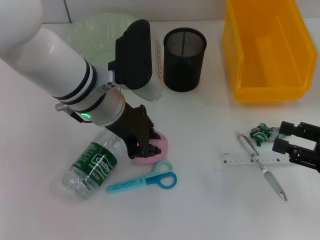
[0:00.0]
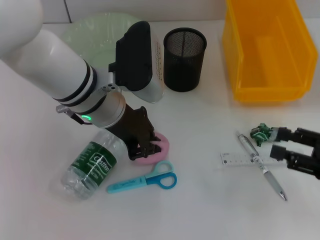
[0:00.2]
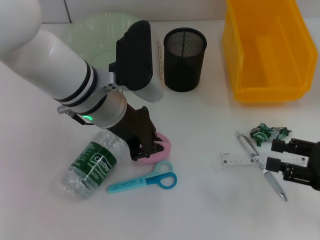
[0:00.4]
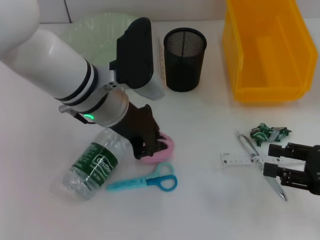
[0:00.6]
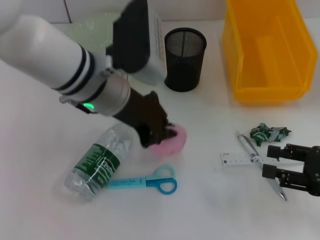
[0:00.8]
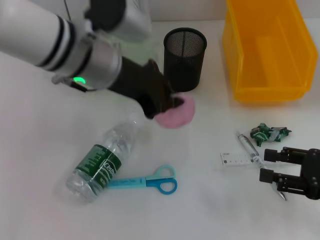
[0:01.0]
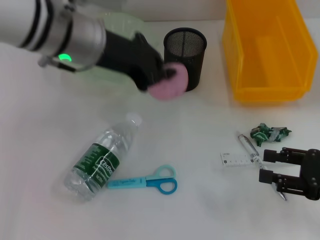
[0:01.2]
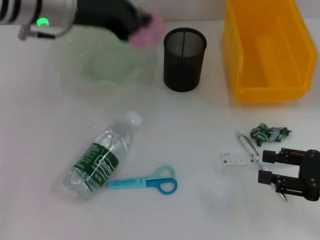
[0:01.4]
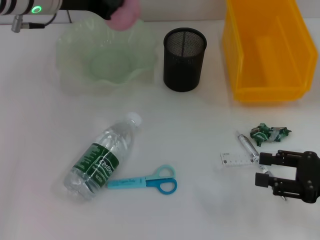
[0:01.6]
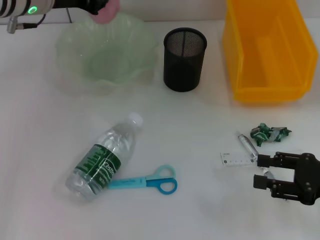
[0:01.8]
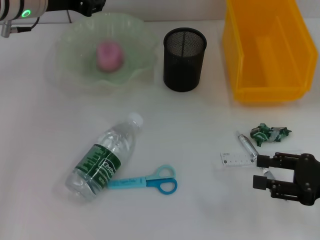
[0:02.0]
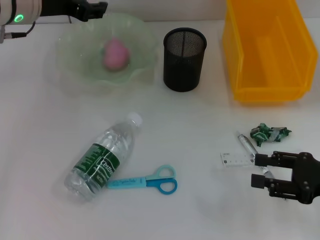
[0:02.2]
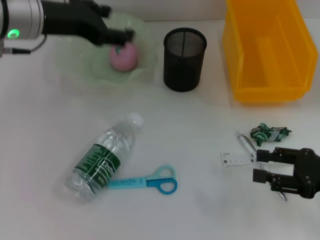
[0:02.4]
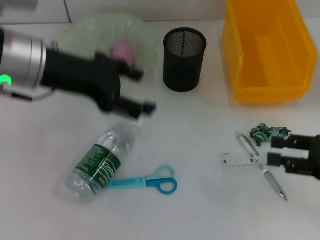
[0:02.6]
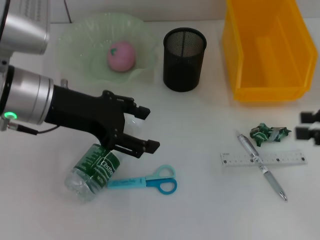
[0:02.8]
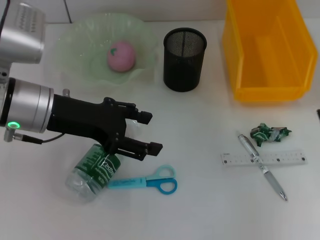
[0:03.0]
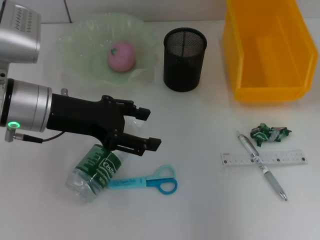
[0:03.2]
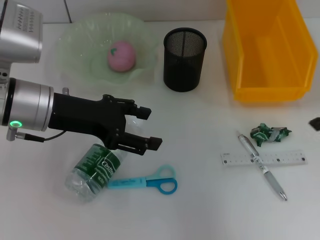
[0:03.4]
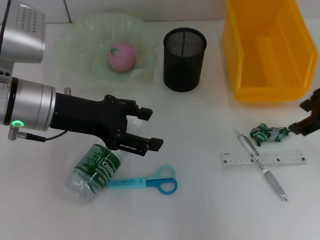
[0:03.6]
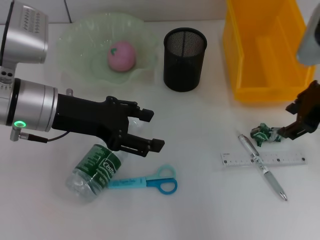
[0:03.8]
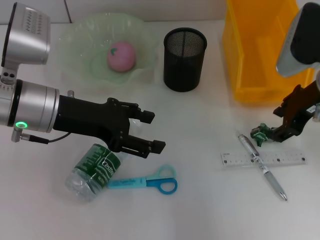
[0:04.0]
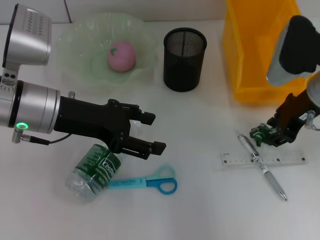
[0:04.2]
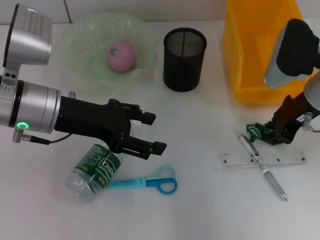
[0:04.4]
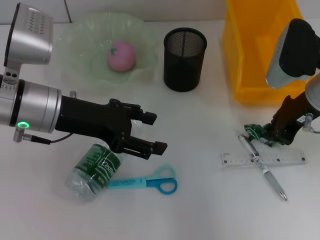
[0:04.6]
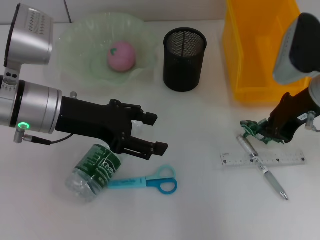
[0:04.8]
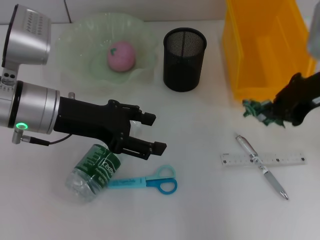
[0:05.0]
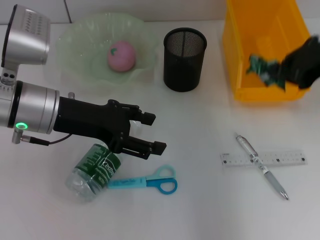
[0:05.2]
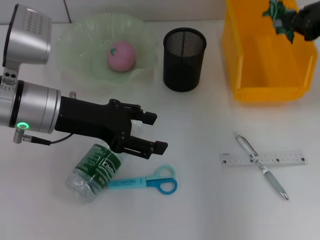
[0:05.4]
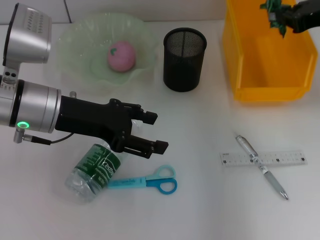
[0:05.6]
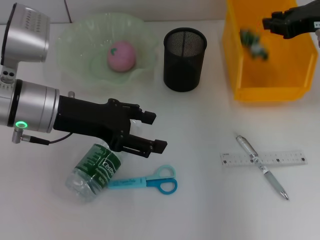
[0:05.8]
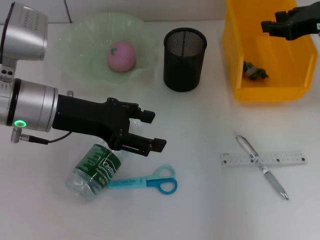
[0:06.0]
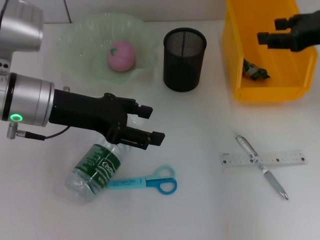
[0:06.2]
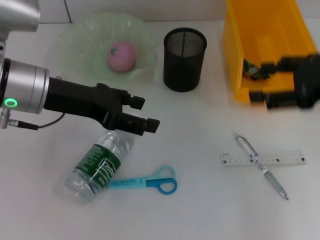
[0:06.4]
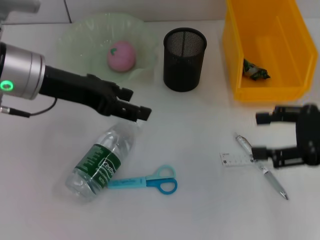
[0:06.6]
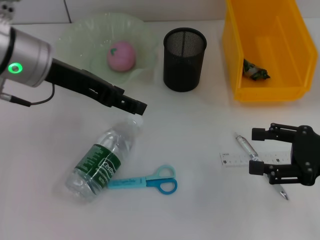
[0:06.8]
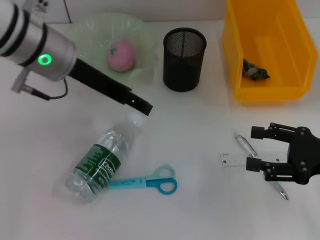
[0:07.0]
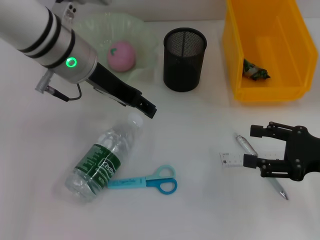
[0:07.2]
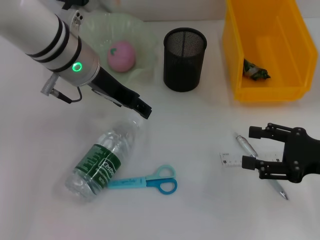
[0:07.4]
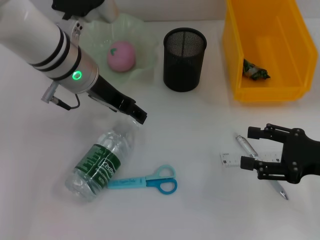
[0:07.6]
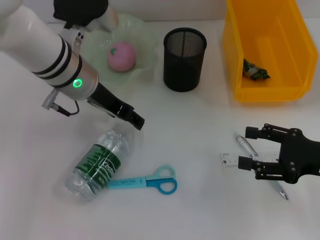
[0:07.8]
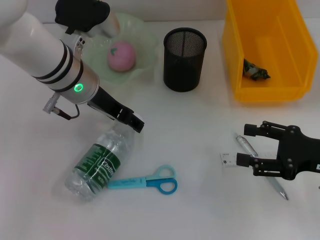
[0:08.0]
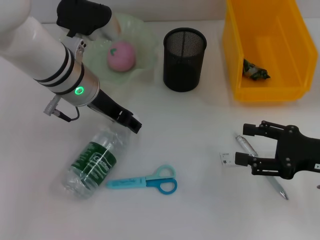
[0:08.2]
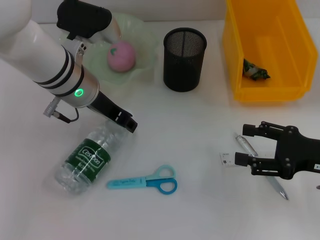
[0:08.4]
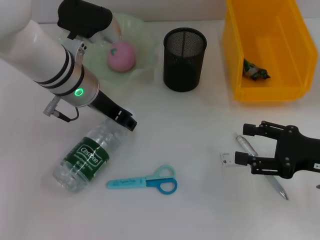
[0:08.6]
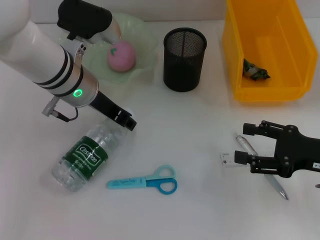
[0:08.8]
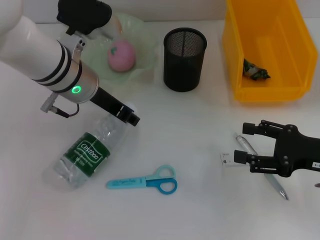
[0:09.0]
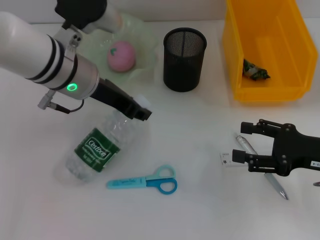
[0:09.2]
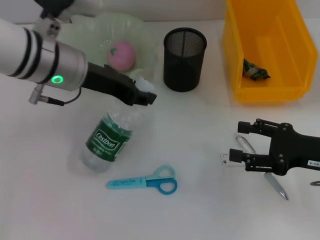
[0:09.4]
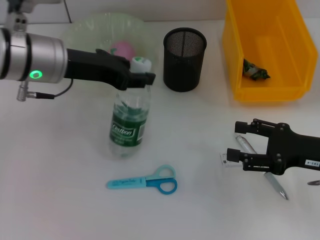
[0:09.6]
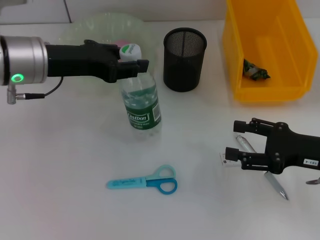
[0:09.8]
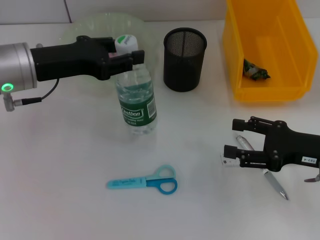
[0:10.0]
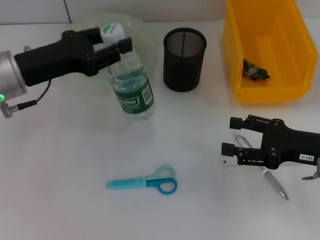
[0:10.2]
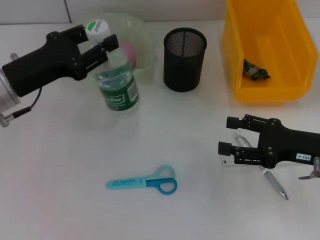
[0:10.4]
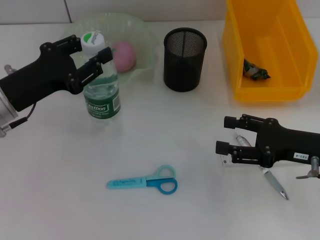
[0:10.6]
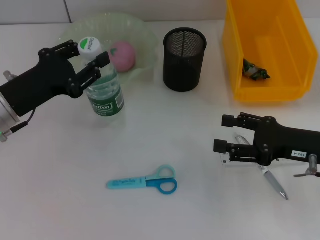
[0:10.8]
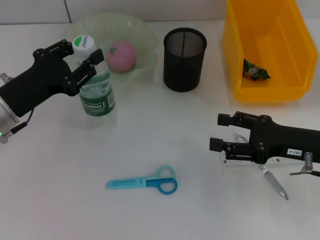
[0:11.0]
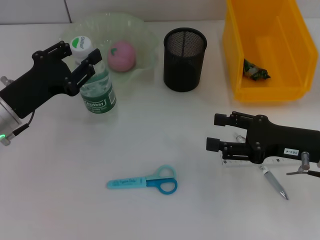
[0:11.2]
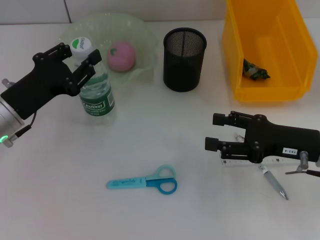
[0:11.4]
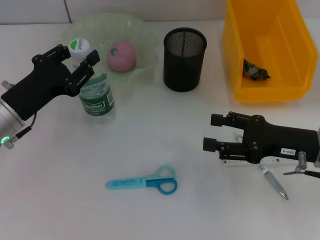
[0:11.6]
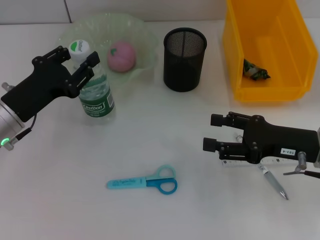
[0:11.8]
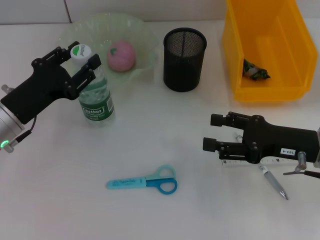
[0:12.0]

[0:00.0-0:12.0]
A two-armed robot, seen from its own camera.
Step, 0.2 to 2.2 s: Place the peach into the fruit bowl with the left hand.
Step, 2.4 to 4.6 s: Grab the plastic with the right hand.
Step, 4.8 to 6.0 s: Place the plastic into the trash can with the right hand.
Step, 6.2 to 8.2 s: Grab the water bottle with the left hand.
0.0 to 1.6 s: The left gripper heads to the left, forward and upward, covering about 15 cm, and closes its fingers.
1.6 to 3.0 s: The right gripper travels upward and forward by roughly 15 cm. The left gripper moves backward and downward, approximately 10 cm, and opens its fingers.
3.0 to 4.4 s: The right gripper is displaced to the left, forward and downward by approximately 15 cm.
4.4 to 6.0 s: The right gripper travels to the right and upward by roughly 10 cm.
6.0 to 7.6 s: The right gripper shifts about 20 cm backward and downward, and opens up, while the left gripper shifts some 10 cm forward and to the right.
7.6 to 9.0 s: The left gripper closes up.
9.0 to 10.4 s: The left gripper shifts approximately 15 cm to the left and backward.
10.4 to 12.0 s: The left gripper moves downward, about 5 cm.

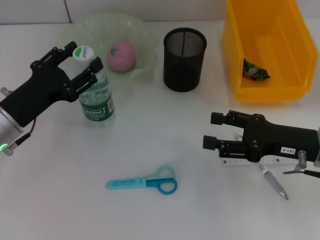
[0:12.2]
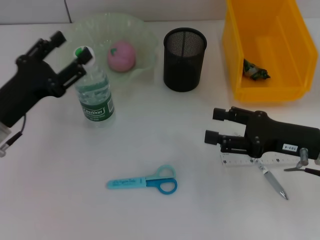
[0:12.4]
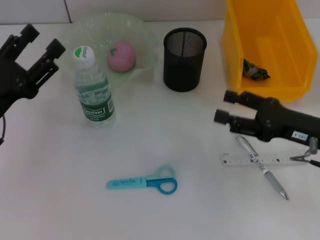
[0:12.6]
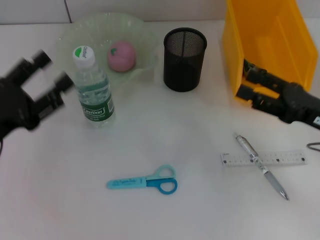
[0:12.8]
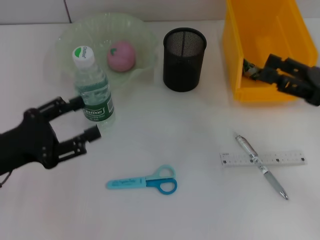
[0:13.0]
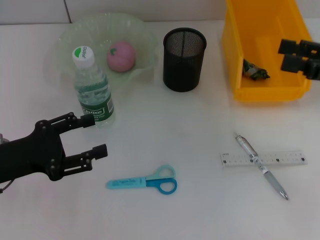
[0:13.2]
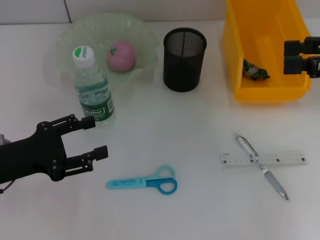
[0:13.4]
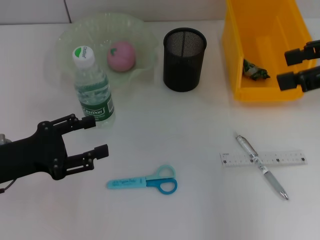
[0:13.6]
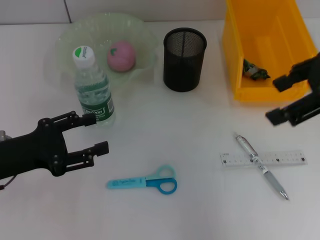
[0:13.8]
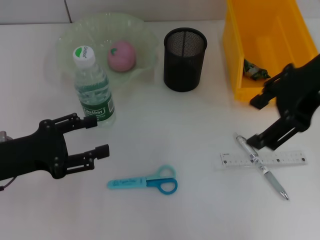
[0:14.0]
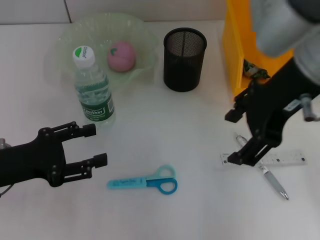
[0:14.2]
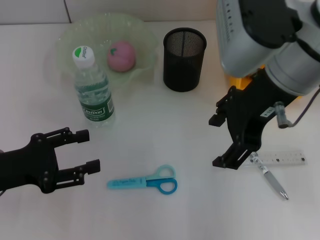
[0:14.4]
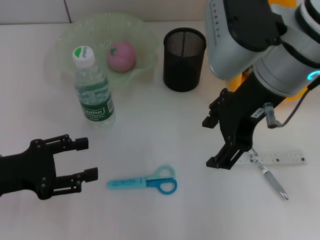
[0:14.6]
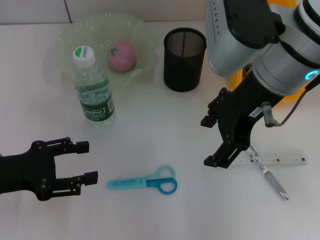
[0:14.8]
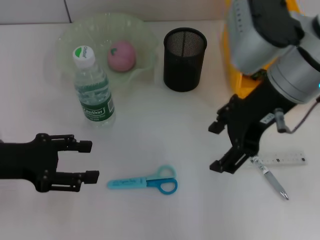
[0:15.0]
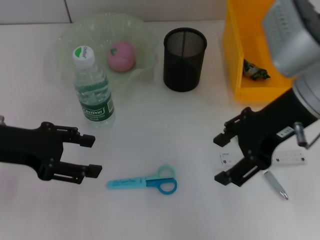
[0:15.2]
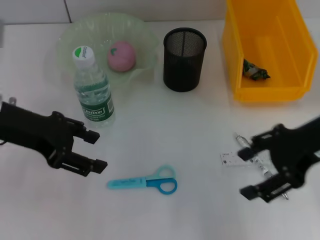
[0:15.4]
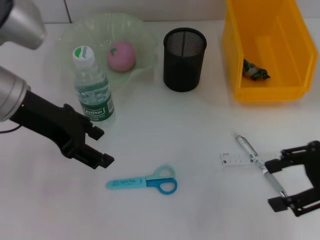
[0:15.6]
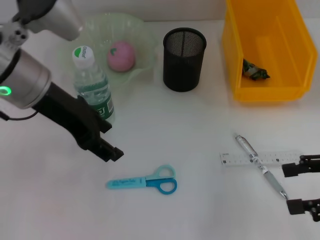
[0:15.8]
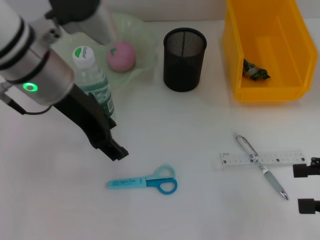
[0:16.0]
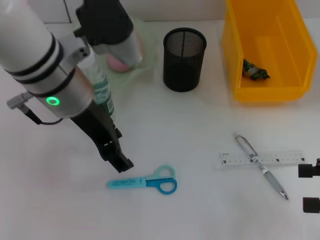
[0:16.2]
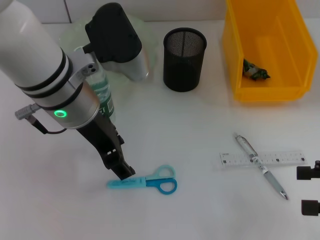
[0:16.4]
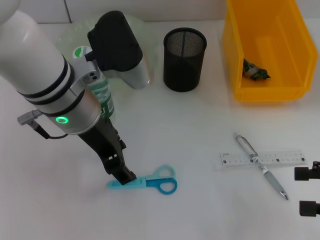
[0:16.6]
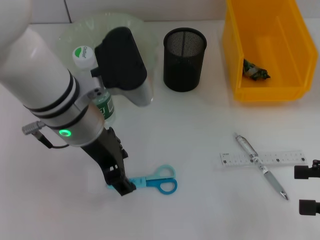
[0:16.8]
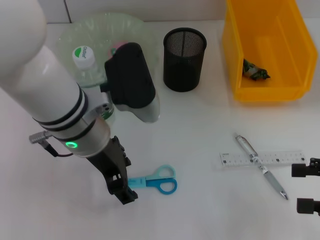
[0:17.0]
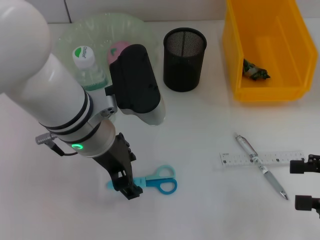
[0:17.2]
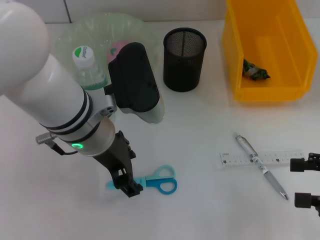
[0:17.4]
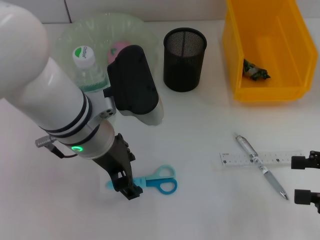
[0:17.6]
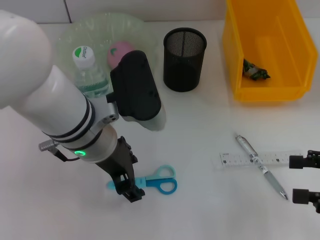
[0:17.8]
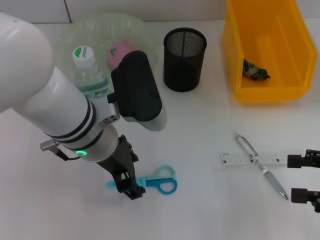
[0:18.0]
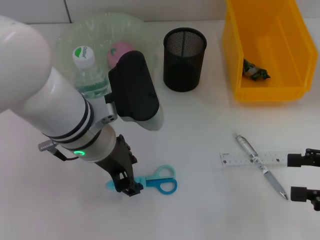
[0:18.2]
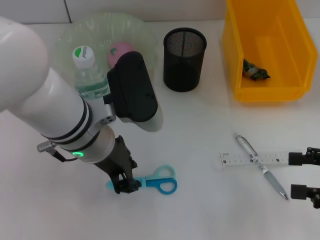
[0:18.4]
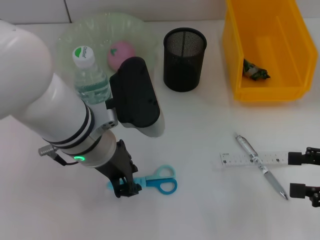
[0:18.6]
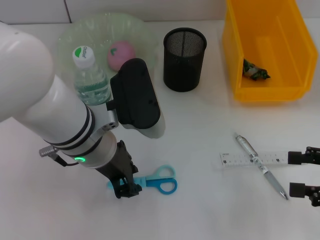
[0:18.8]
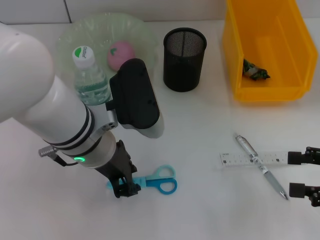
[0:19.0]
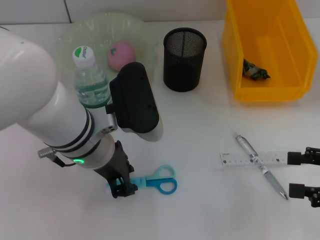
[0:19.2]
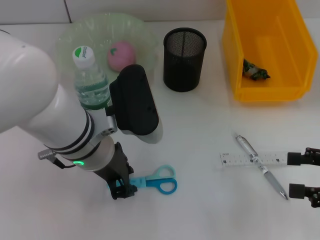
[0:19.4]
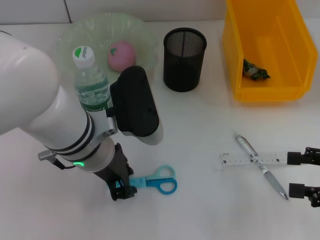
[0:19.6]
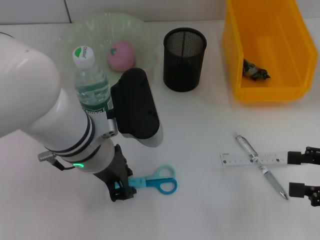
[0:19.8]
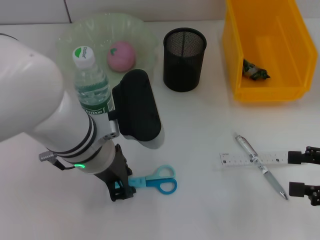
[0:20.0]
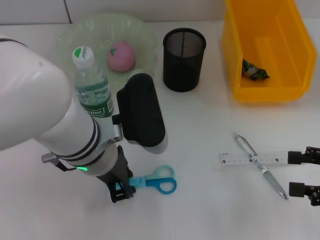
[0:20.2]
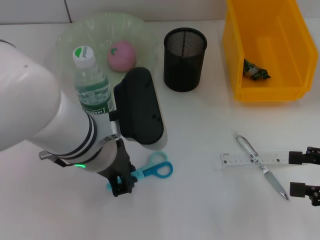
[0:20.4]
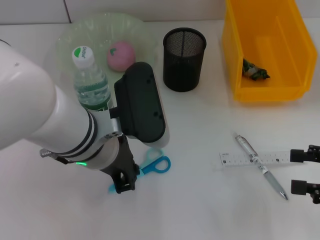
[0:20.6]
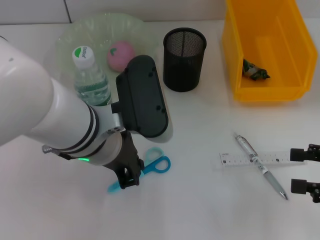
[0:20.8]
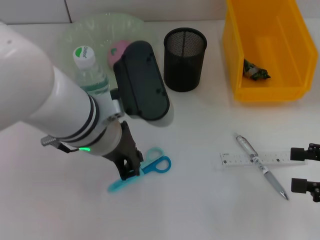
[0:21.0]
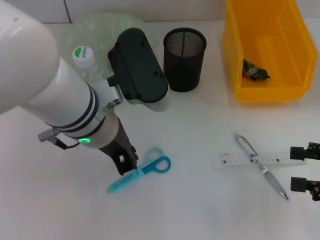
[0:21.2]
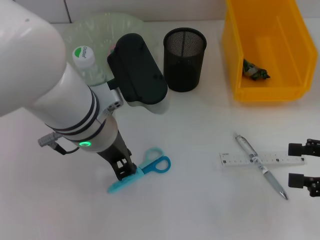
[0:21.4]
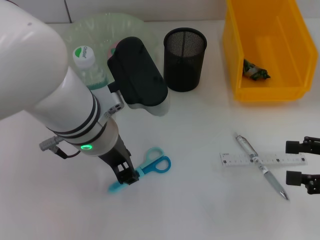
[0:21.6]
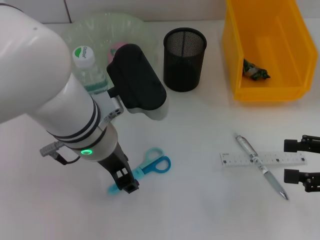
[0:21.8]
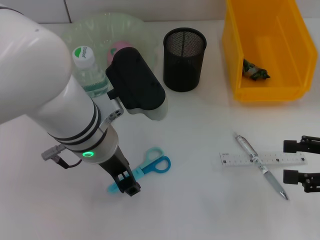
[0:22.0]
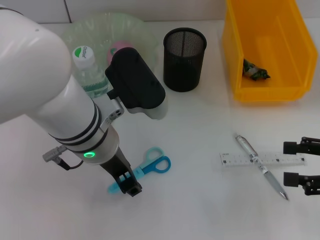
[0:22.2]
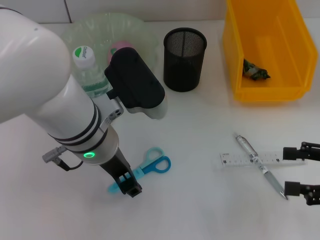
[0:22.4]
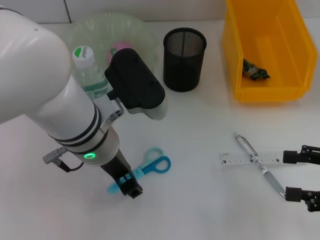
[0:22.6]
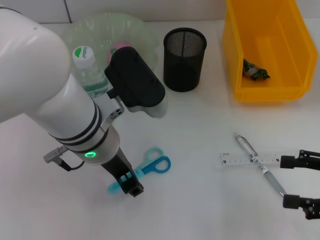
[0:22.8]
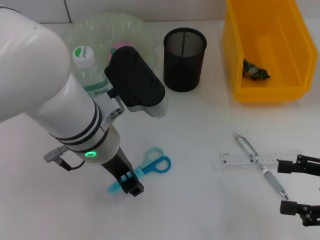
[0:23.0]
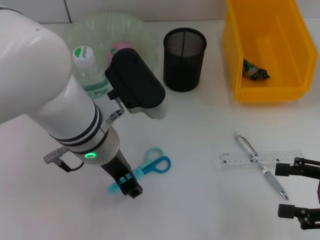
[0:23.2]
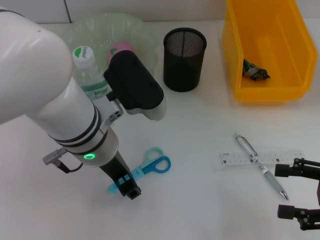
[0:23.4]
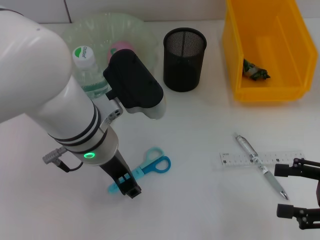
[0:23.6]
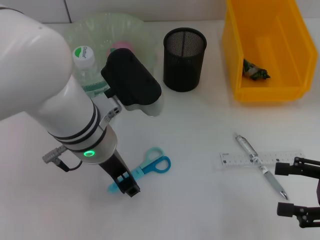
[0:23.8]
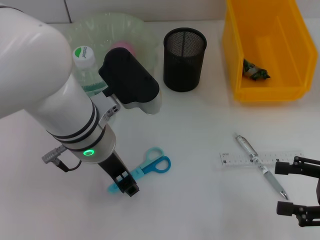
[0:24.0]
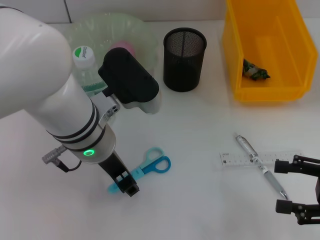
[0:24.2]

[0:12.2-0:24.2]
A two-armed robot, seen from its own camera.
12.2 to 13.8 s: The left gripper changes place by about 5 cm. Meanwhile the right gripper heads upward, covering approximately 20 cm.
13.8 to 15.2 s: The right gripper moves downward and to the left, roughly 10 cm; the left gripper heads upward, covering roughly 5 cm.
15.2 to 16.6 s: The right gripper shifts approximately 25 cm to the right, backward and downward. The left gripper heads to the right, covering roughly 15 cm.
16.6 to 18.2 s: The grippers make only small movements.
18.2 to 19.8 s: The left gripper closes.
19.8 to 21.2 s: The left gripper closes its fingers.
21.2 to 22.6 s: The left gripper opens up.
22.6 to 24.2 s: The grippers make only small movements.
